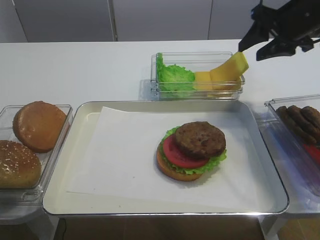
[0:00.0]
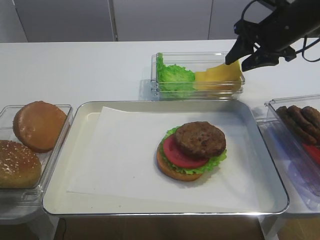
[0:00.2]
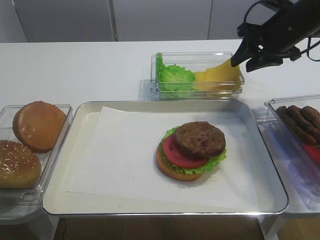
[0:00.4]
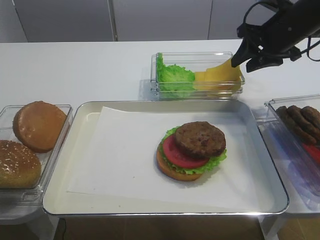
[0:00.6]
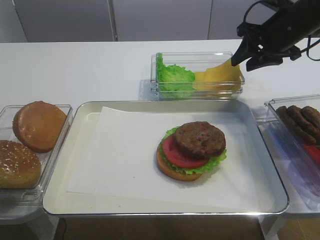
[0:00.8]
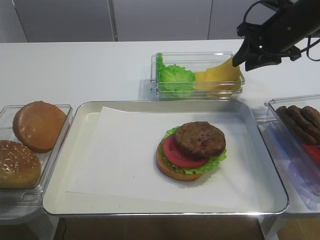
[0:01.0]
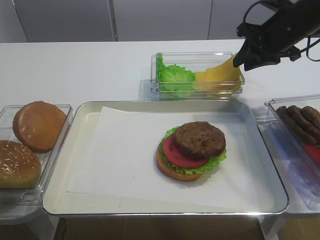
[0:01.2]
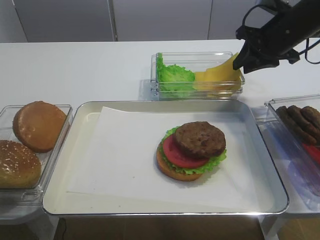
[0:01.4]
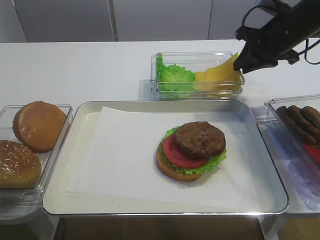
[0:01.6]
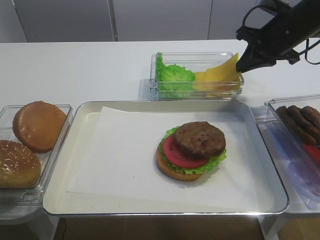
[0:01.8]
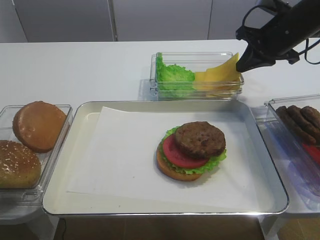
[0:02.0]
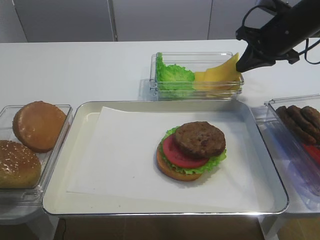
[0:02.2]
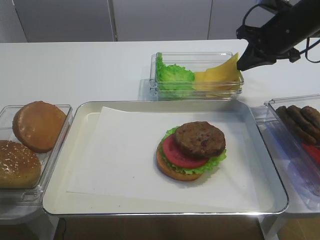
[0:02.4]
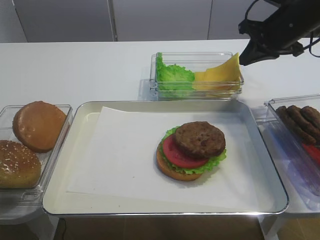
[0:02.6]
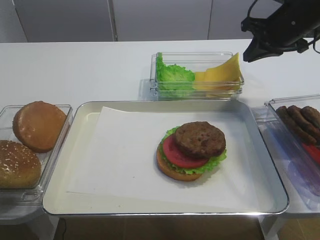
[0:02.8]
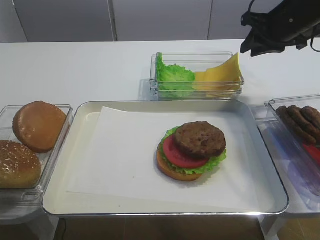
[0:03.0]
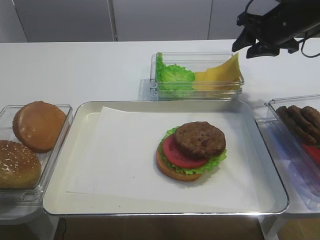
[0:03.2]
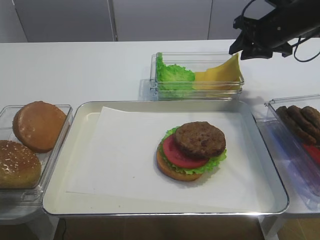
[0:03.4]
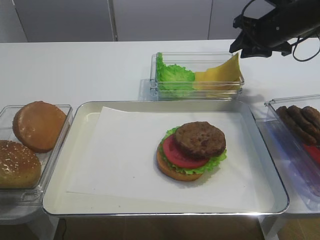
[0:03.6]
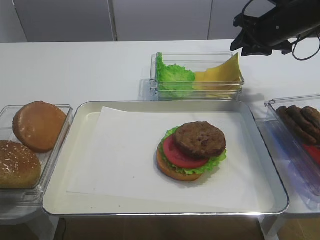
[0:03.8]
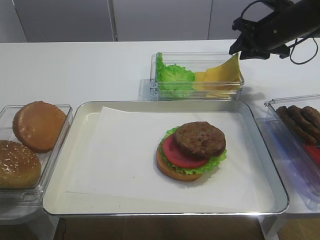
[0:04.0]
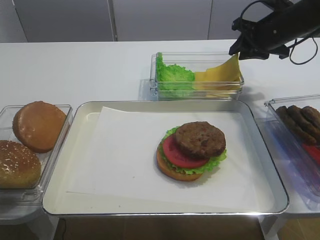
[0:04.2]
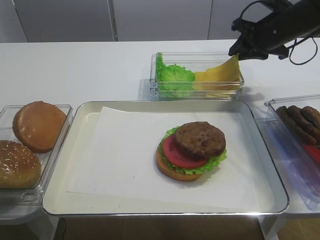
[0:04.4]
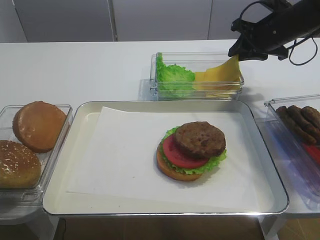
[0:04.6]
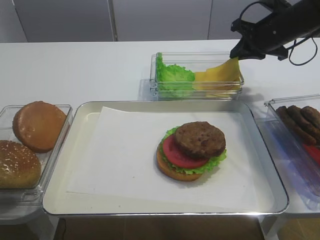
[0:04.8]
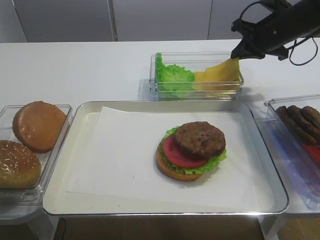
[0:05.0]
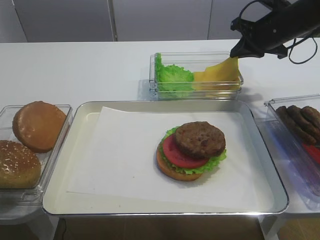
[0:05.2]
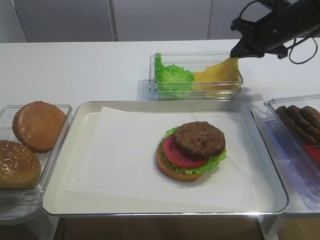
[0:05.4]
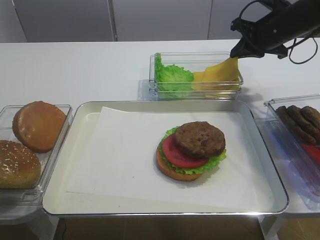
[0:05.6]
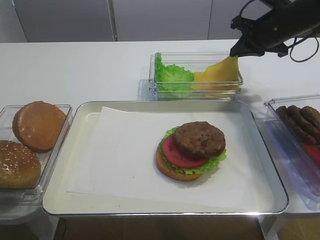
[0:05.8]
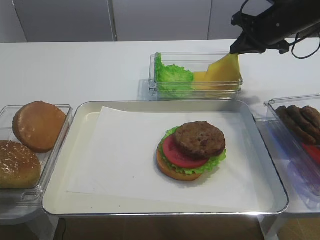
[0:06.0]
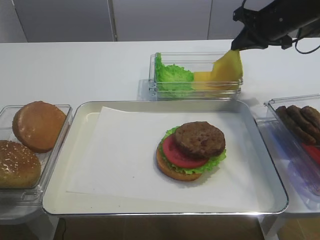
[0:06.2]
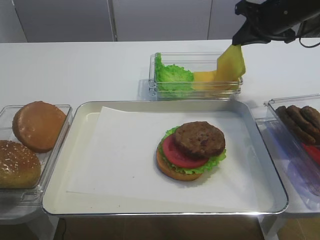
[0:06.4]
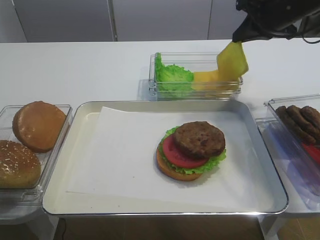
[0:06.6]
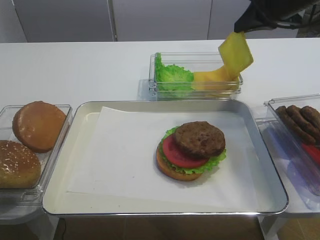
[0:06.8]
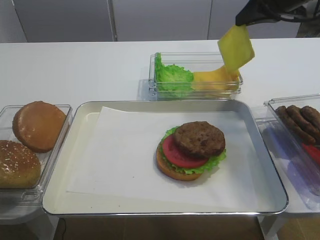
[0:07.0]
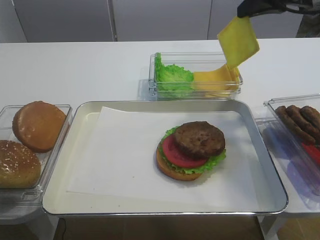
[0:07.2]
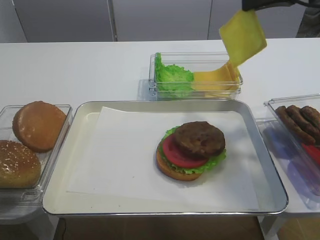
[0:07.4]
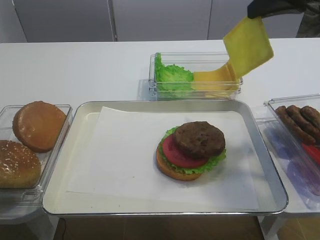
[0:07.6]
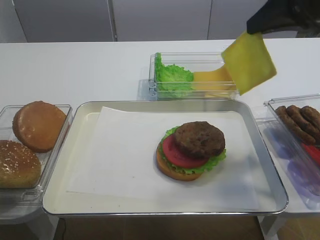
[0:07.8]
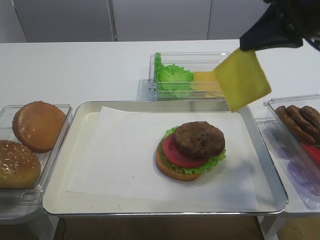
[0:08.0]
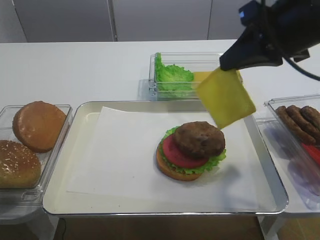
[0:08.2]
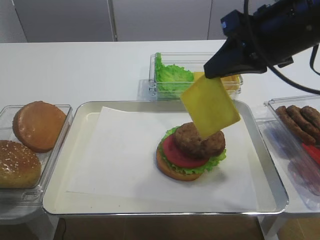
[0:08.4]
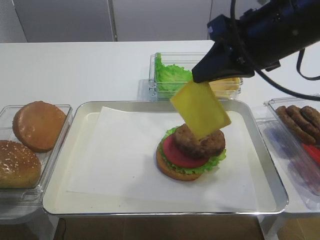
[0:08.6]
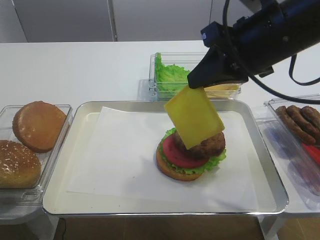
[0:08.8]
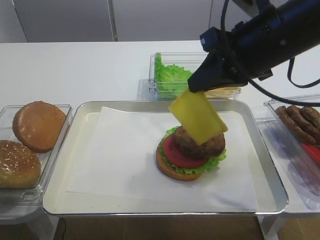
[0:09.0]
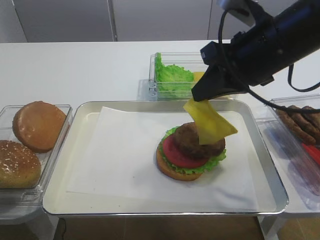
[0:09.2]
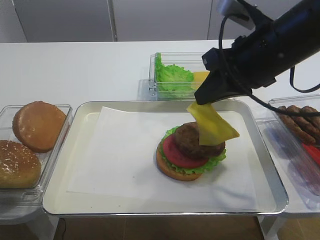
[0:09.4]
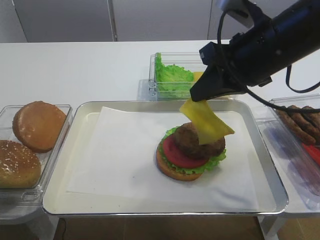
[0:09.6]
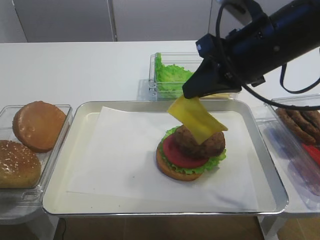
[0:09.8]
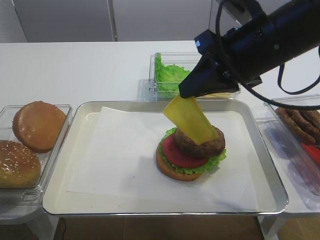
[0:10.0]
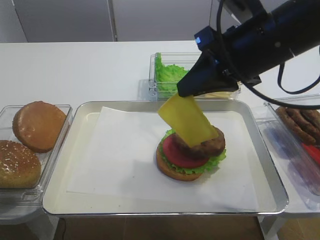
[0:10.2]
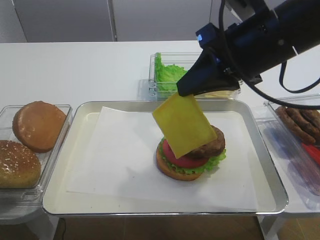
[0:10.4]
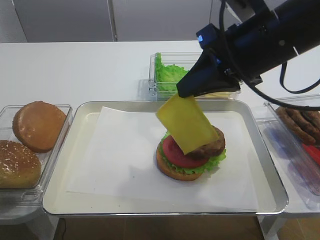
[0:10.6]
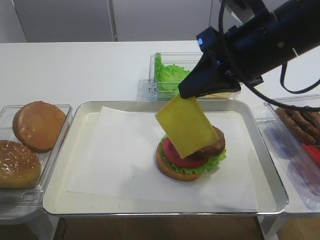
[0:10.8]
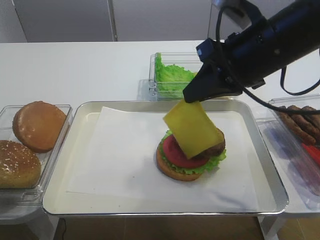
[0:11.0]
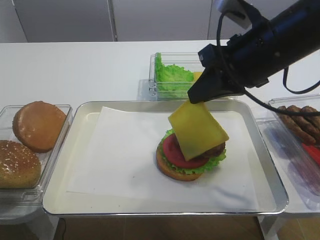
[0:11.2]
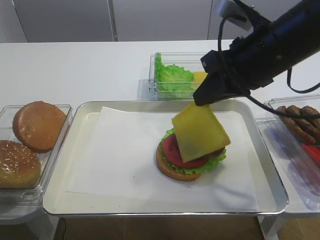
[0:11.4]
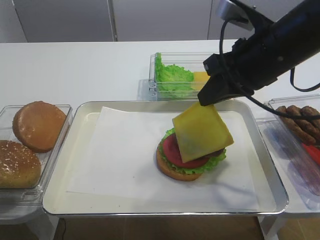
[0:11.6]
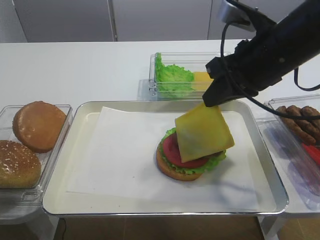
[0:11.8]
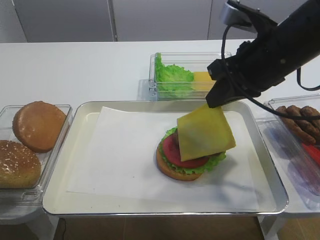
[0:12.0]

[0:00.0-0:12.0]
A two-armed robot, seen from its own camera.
Step, 0:00.0 to 0:06.4: Pick up the cheese slice with the right gripper.
0:00.0 to 0:01.6: The right gripper closes up.
0:01.6 to 0:04.4: There are only small adjustments of the grippers.
0:04.4 to 0:06.0: The right gripper closes its fingers.
0:06.0 to 0:07.6: The right gripper moves backward and upward, about 15 cm.
0:07.6 to 0:09.0: The right gripper goes roughly 10 cm to the left, downward and backward.
0:09.0 to 0:12.0: The grippers stay close to where they were, moving slightly.

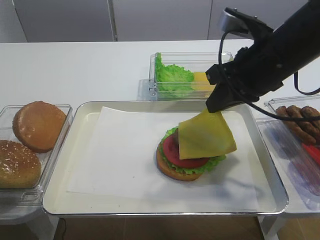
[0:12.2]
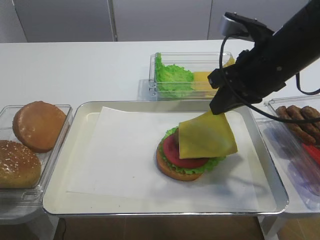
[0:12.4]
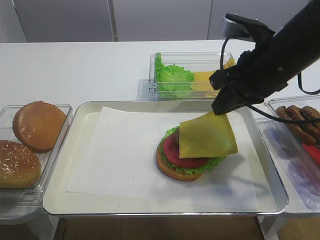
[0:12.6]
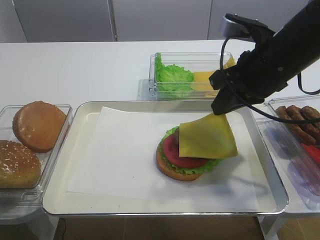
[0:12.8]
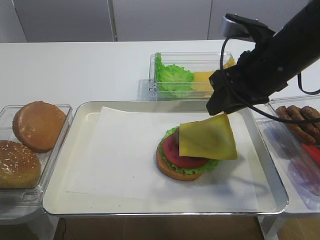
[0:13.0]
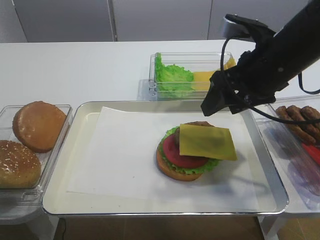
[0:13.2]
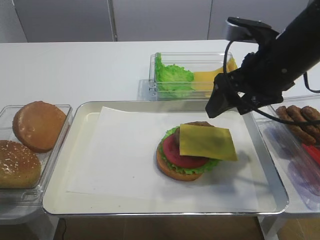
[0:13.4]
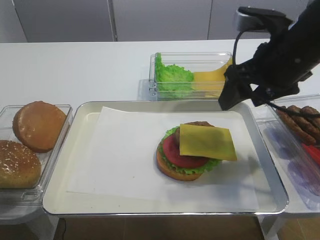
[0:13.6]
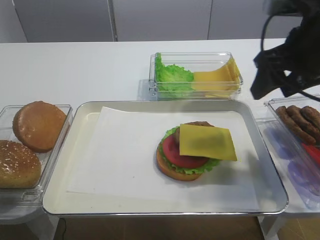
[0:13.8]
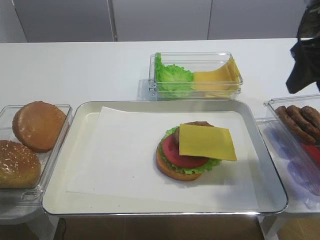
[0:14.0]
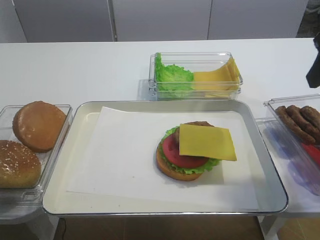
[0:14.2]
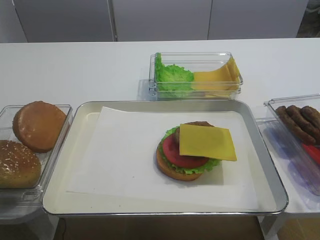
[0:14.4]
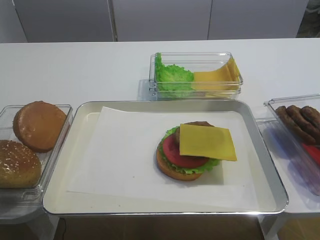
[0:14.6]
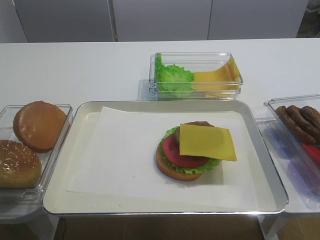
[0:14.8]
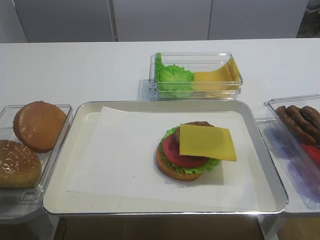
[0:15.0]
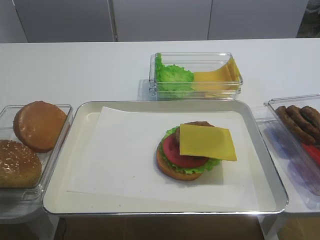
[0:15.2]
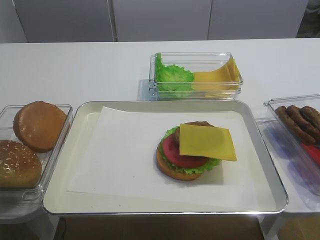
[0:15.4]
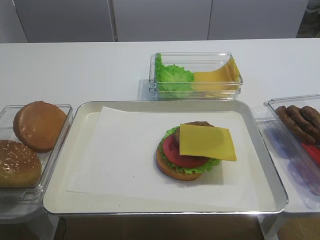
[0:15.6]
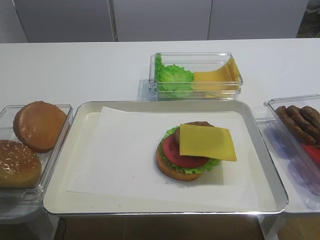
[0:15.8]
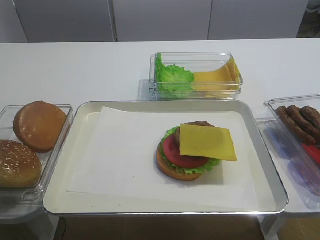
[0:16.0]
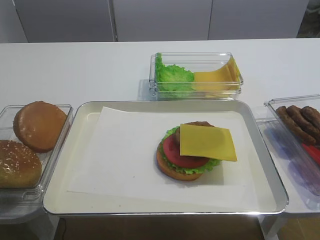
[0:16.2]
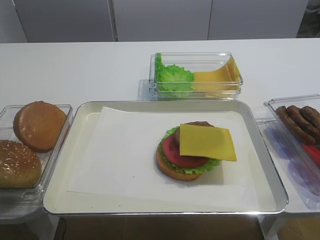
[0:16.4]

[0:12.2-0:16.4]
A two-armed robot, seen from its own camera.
0:12.2 to 0:13.6: The right gripper opens.
0:13.6 to 0:15.0: The right gripper goes about 25 cm backward and to the right.

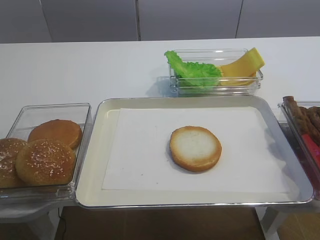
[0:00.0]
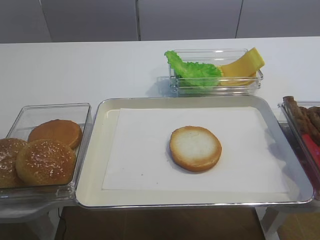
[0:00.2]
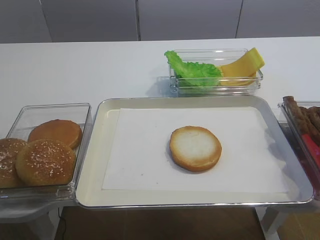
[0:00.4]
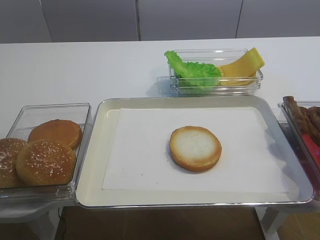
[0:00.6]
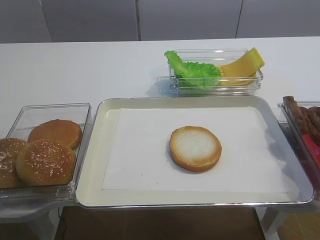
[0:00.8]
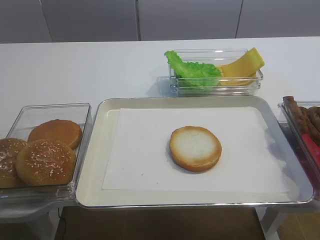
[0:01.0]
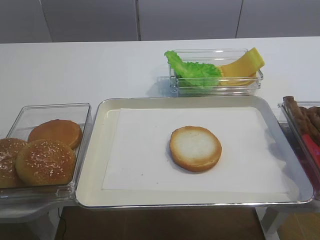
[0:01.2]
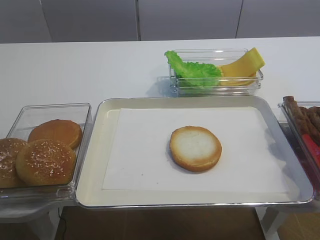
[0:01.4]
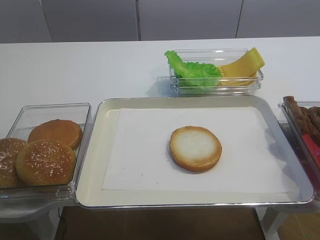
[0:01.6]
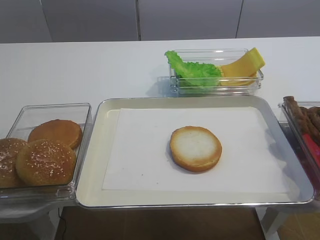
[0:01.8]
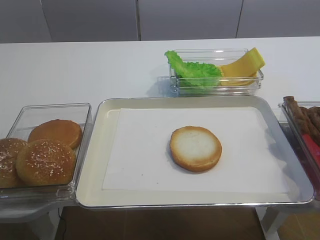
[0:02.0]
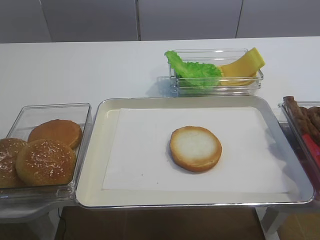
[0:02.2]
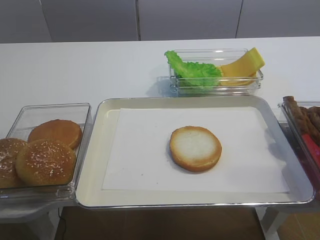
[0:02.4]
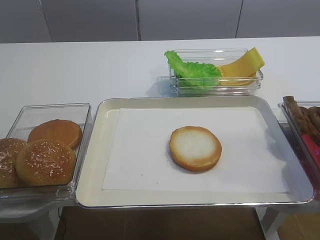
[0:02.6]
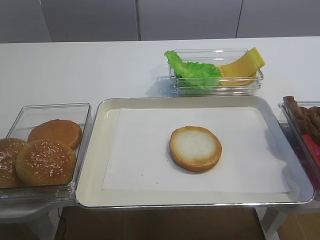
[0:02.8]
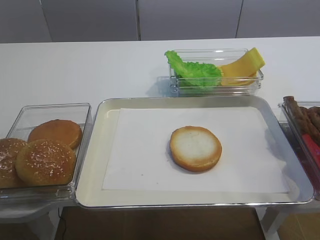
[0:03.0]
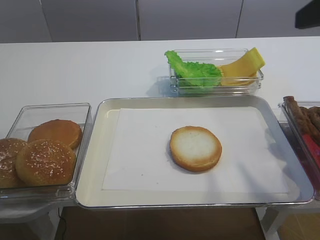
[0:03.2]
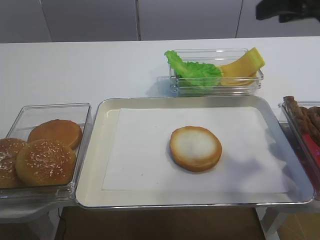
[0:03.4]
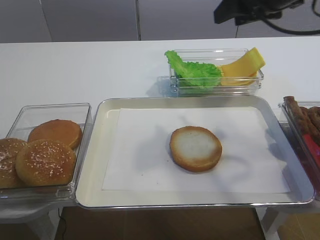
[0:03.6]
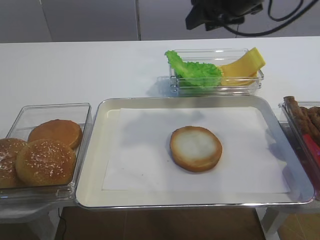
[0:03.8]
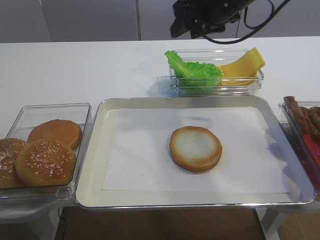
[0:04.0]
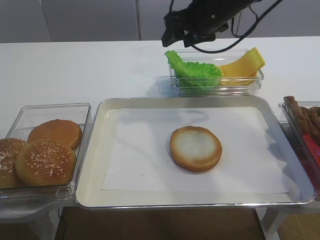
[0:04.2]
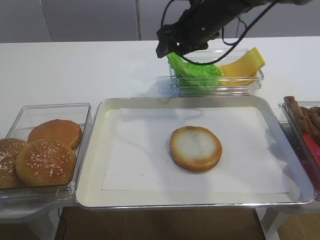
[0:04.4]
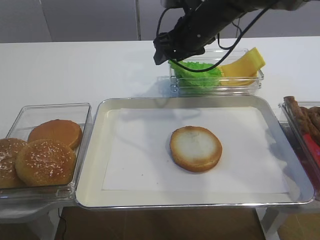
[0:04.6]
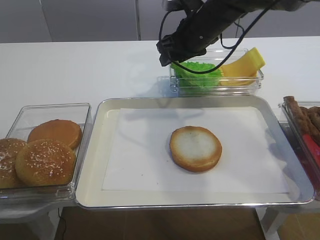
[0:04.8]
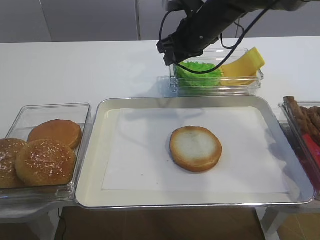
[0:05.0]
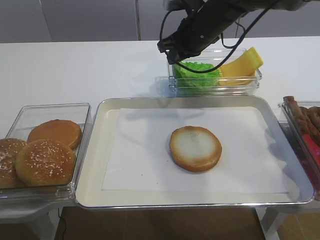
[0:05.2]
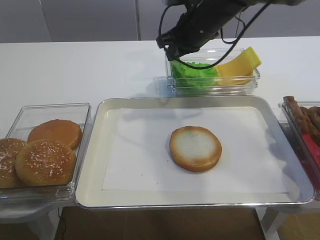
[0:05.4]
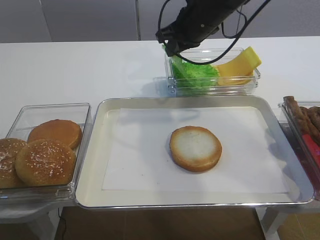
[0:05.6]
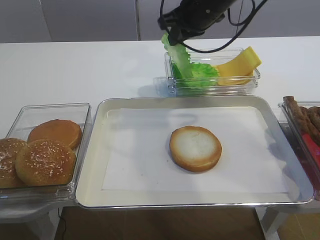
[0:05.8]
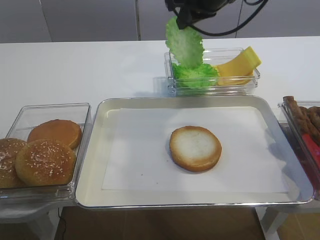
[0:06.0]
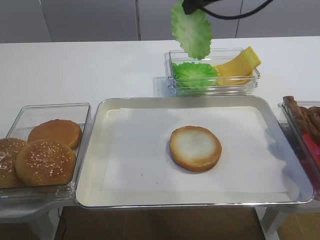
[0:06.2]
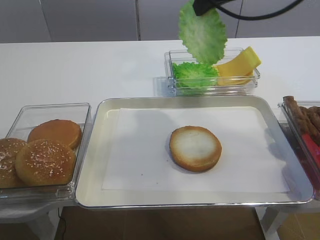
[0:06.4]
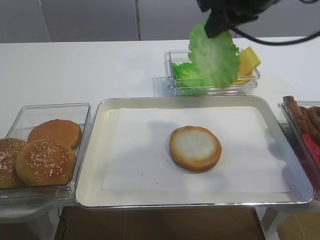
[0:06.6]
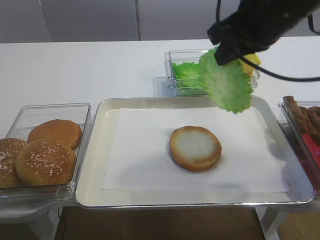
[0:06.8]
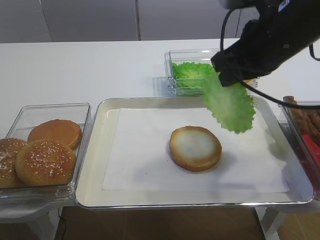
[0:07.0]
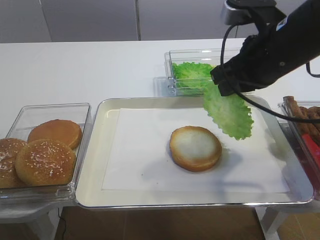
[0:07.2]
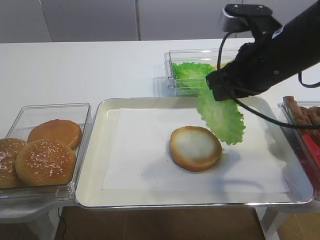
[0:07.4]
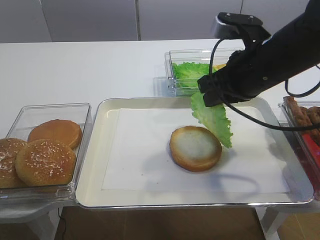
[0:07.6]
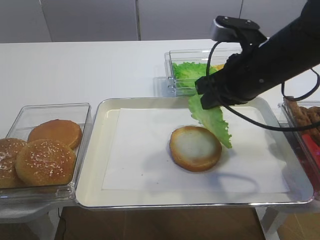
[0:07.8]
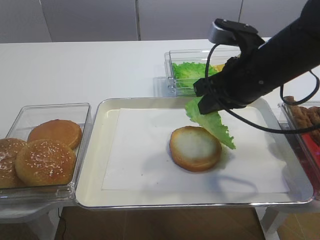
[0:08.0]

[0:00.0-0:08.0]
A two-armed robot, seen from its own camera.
Step, 0:00.0 to 0:06.0: Pick up the lettuce leaf with the right gripper.
0:01.6 to 0:03.2: The right gripper is displaced forward and upward by about 25 cm, and opens up.
0:03.2 to 0:04.8: The right gripper travels forward, to the left and downward by some 30 cm.
0:04.8 to 0:06.4: The right gripper moves upward and backward, roughly 15 cm, and closes up.
0:06.4 to 0:08.0: The right gripper moves downward and backward, roughly 15 cm.
